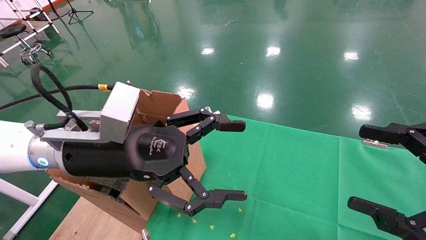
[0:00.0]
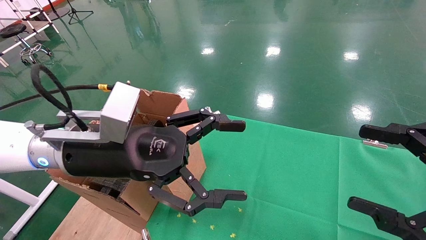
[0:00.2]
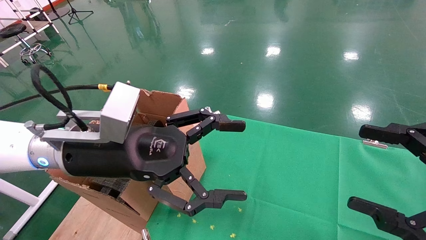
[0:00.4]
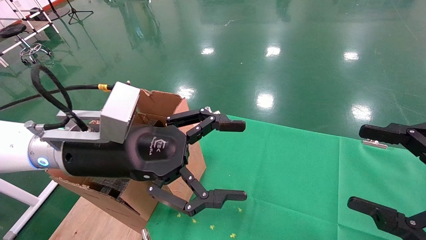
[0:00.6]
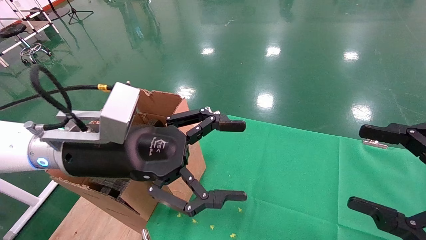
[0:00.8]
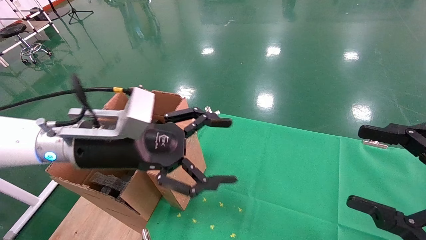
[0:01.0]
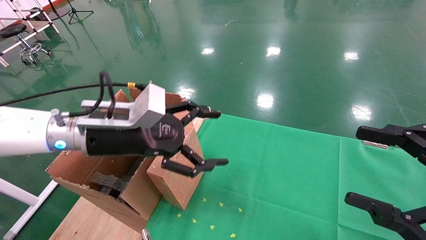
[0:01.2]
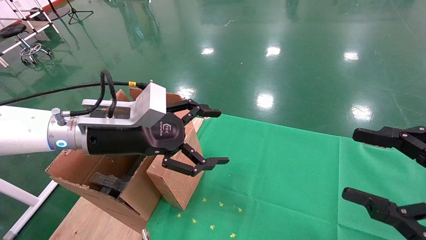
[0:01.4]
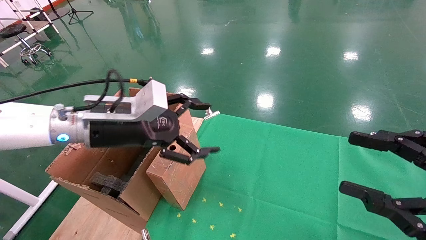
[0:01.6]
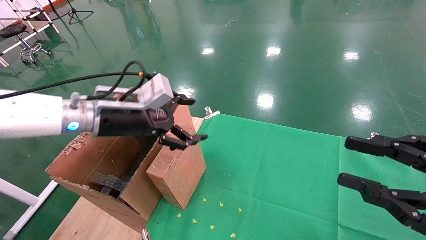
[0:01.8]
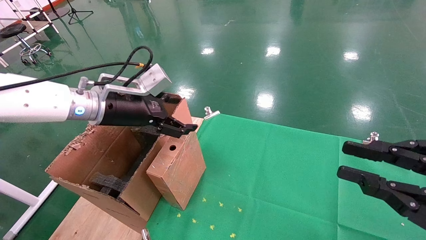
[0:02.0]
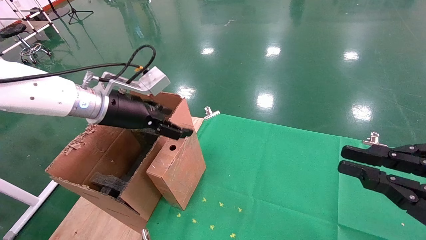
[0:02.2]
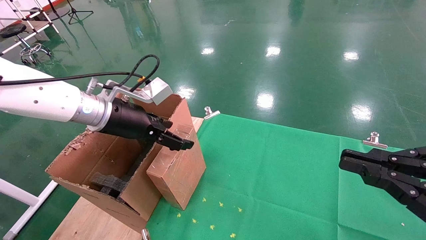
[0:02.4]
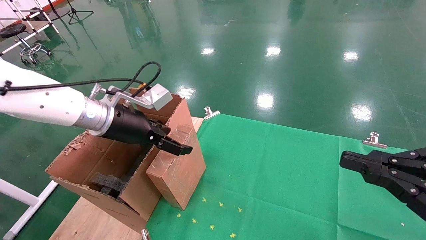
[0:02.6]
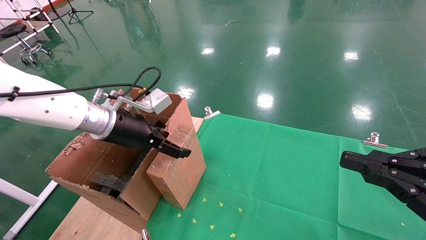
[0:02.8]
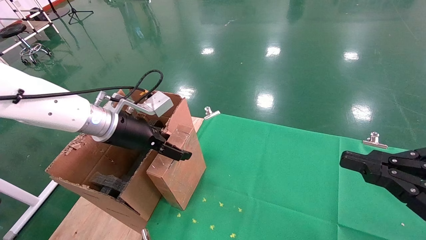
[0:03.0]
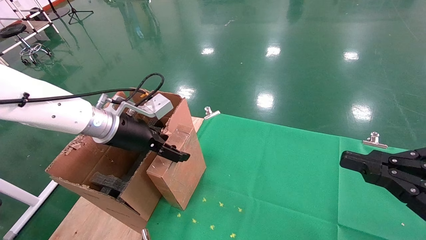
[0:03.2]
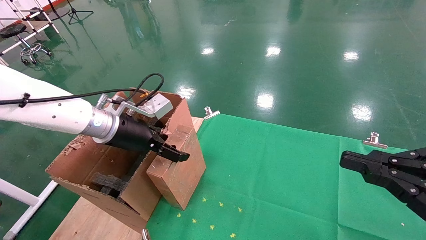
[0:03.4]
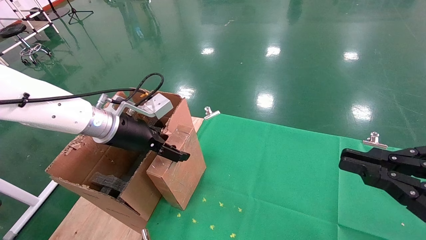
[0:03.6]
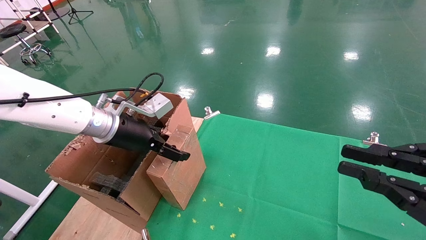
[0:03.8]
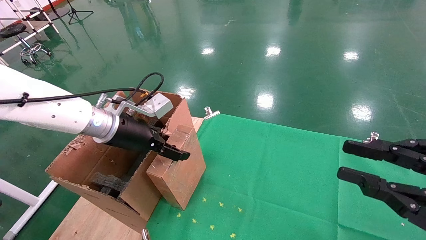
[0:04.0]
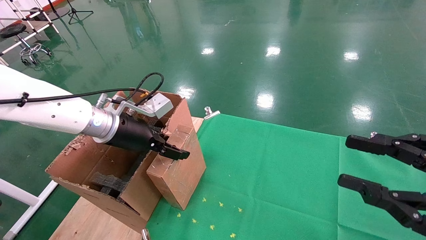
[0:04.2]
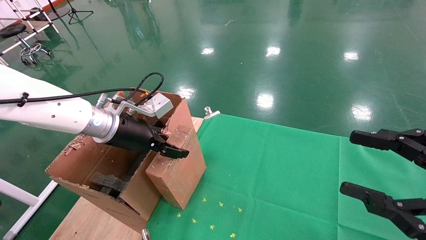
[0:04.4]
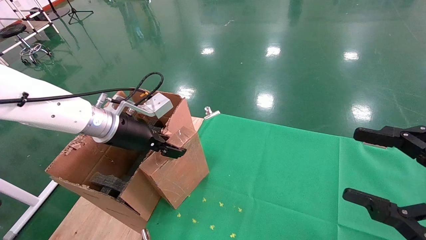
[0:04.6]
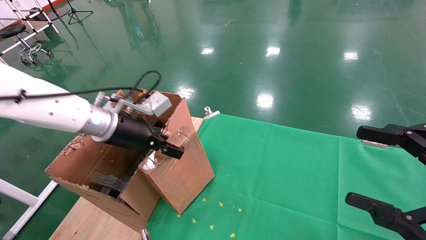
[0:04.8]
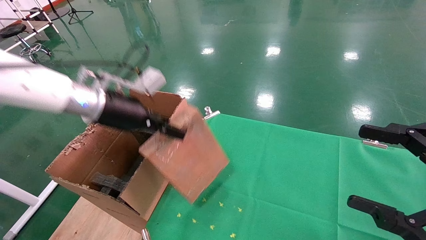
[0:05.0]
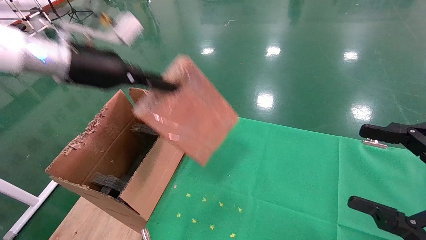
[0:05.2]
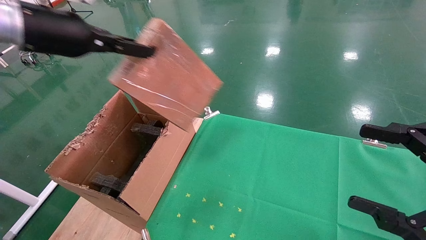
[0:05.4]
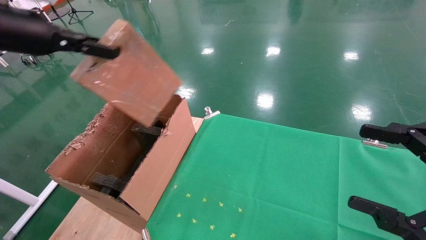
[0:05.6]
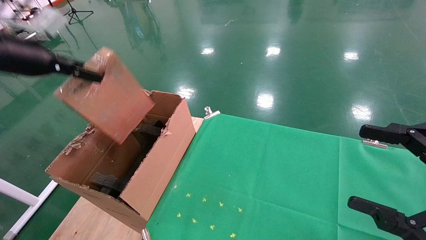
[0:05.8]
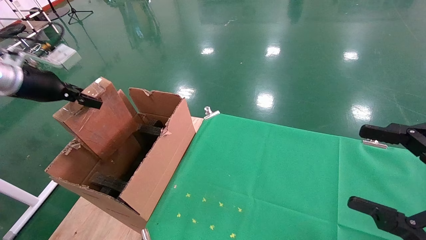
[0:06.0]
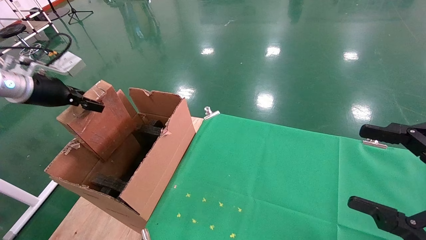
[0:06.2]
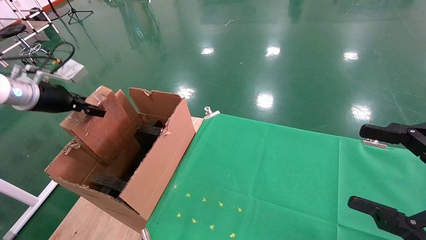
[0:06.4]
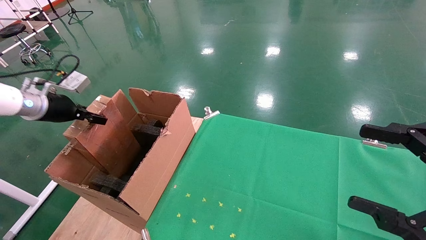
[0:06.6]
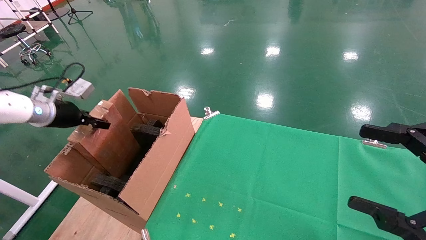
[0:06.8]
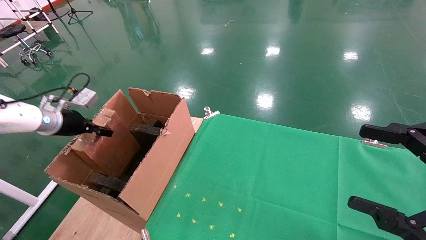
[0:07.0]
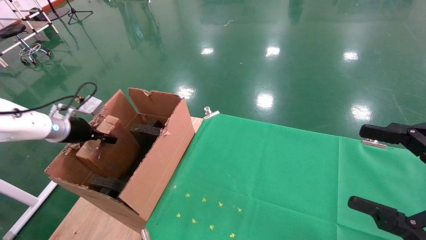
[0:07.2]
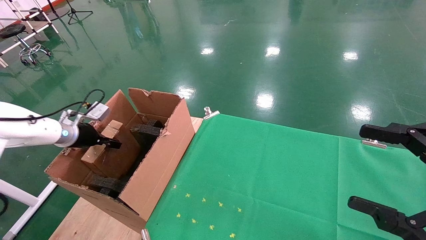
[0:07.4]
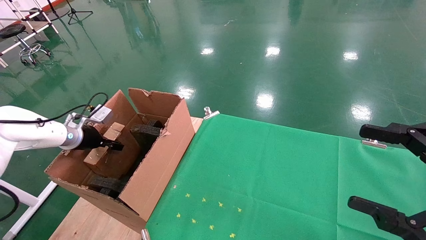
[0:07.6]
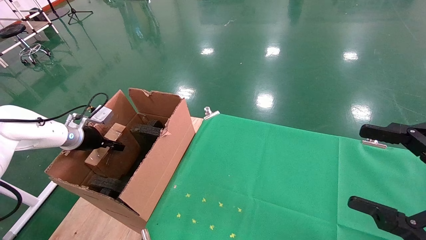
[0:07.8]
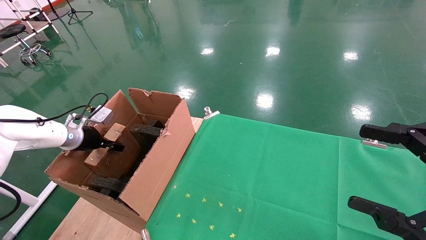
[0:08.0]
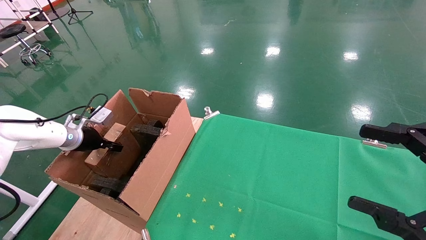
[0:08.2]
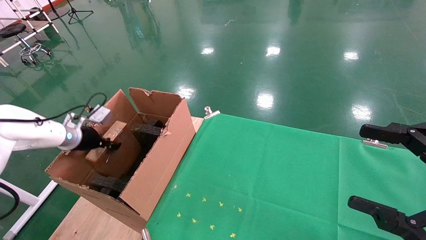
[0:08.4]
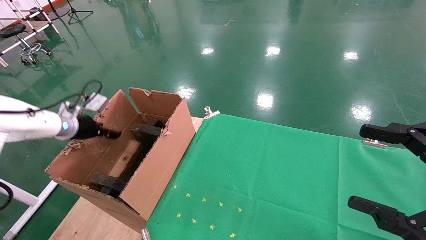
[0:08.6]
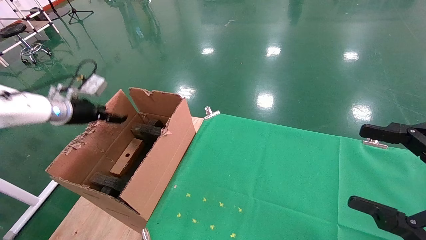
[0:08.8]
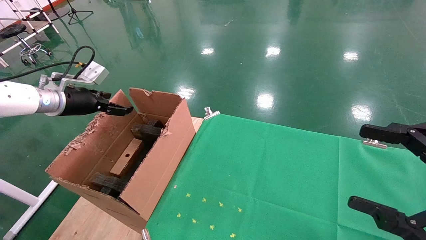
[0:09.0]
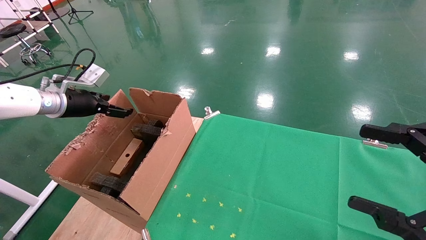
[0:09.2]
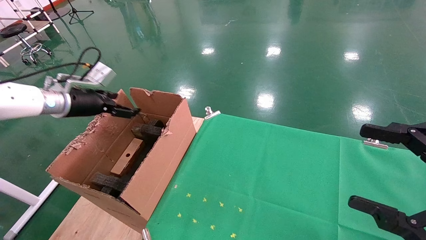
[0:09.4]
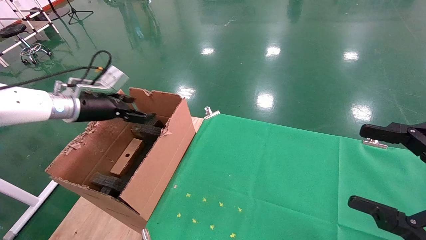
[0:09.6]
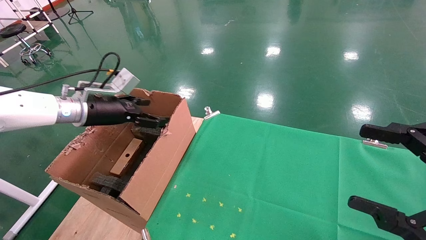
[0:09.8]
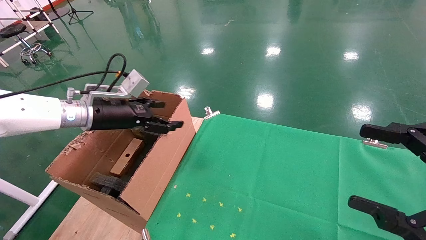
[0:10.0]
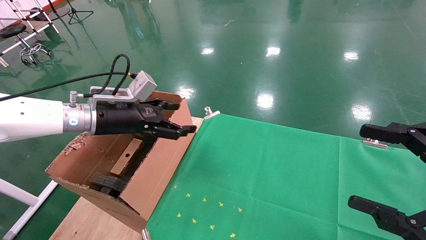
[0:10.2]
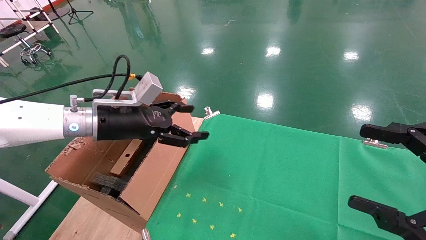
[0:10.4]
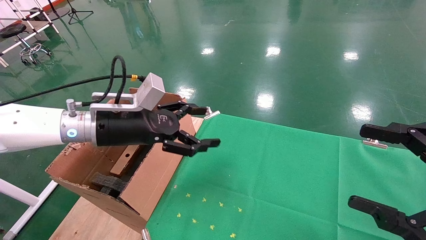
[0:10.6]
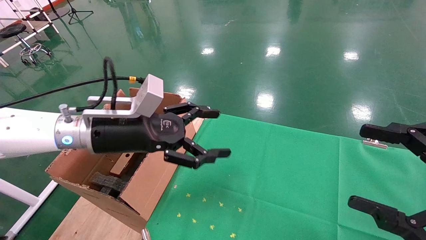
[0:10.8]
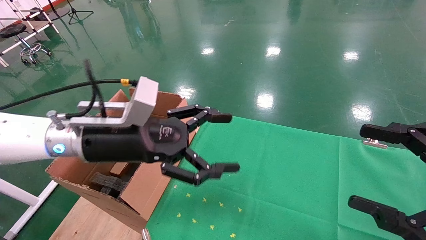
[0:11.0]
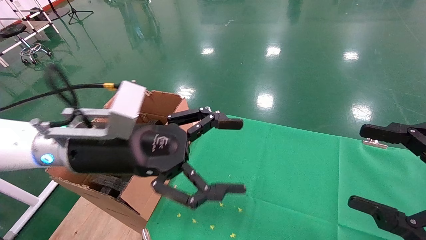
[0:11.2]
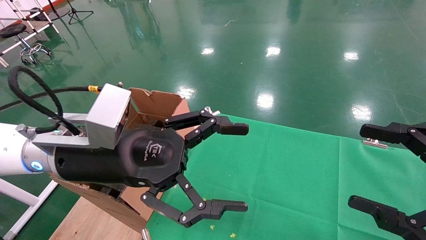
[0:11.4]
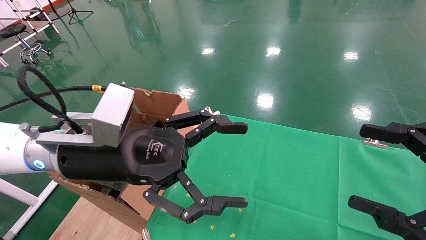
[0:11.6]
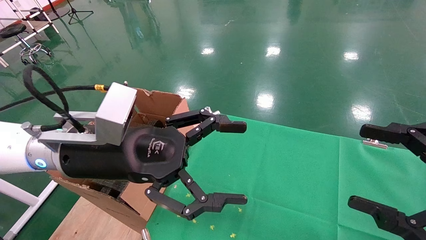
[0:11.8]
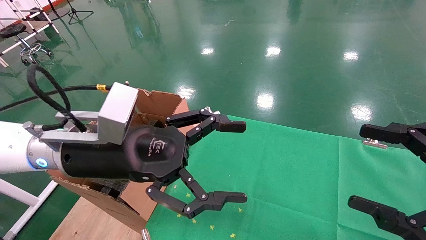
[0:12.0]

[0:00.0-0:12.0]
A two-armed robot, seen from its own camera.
Task of the whole recording: using a robotic arm to pick up a cardboard box and palace it the carton.
Step, 0:01.2 to 0:04.4: Pick up the mouse and the power cord paper box.
Step, 0:04.6 to 0:09.8: Place the mouse and the power cord paper box into the container.
0:00.0 to 0:01.6: The left gripper travels forward by about 5 cm.
0:01.6 to 0:03.0: The right gripper closes its fingers.
0:03.0 to 0:04.4: The right gripper opens up. Meanwhile the left gripper closes up.
0:04.4 to 0:06.0: The left gripper is displaced to the left and upward by approximately 20 cm, and closes its fingers. The right gripper opens up.
0:06.0 to 0:07.6: The left gripper travels downward and forward by some 20 cm.
0:07.6 to 0:09.0: The left gripper is displaced upward by some 10 cm, and opens up.
0:09.0 to 0:10.4: The left gripper moves to the right, roughly 15 cm.
0:10.4 to 0:12.0: The left gripper travels backward and to the right by approximately 15 cm.

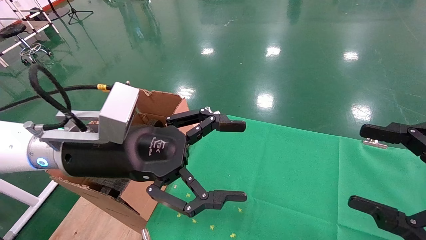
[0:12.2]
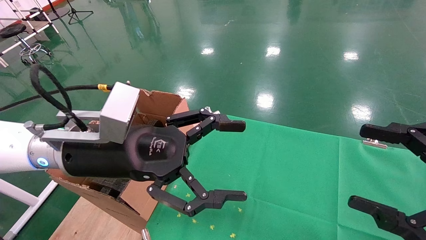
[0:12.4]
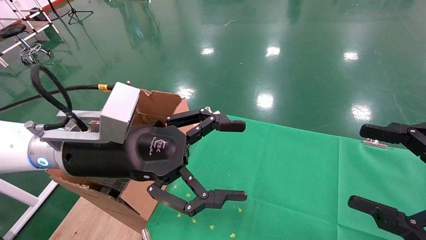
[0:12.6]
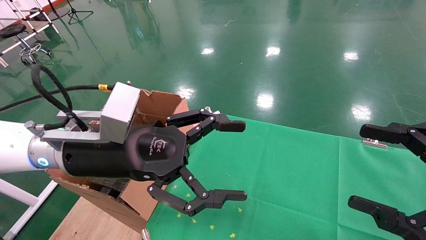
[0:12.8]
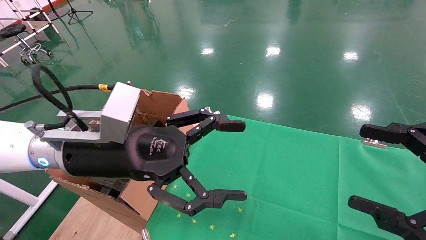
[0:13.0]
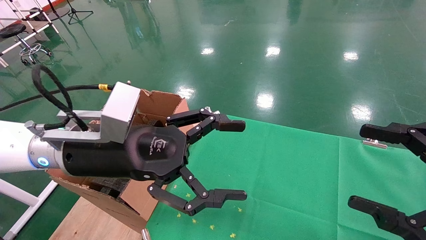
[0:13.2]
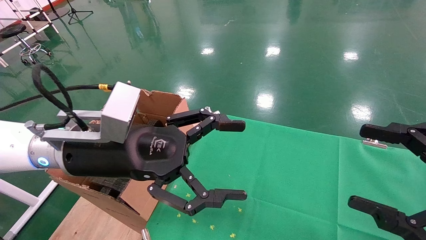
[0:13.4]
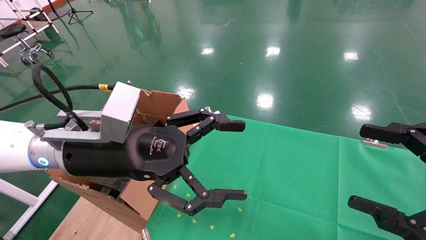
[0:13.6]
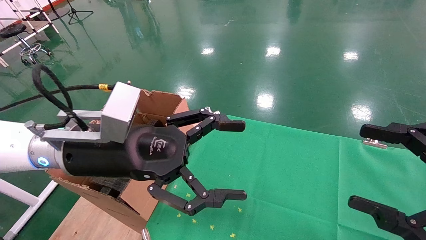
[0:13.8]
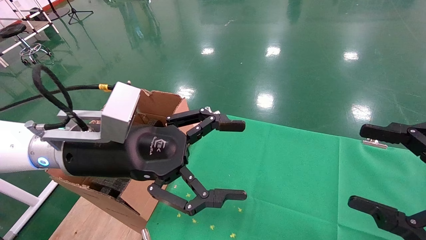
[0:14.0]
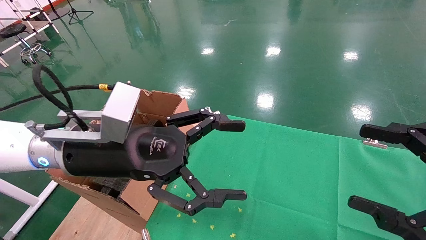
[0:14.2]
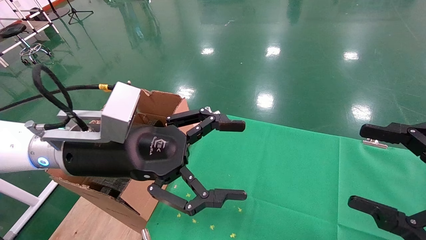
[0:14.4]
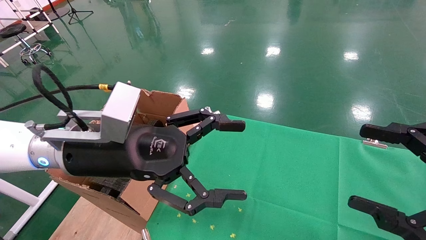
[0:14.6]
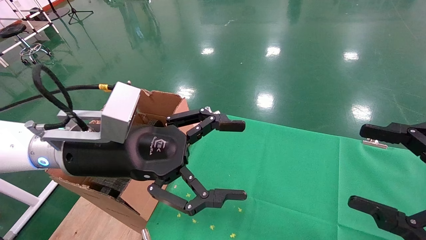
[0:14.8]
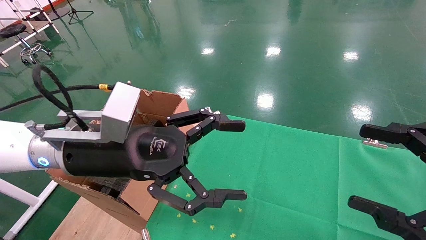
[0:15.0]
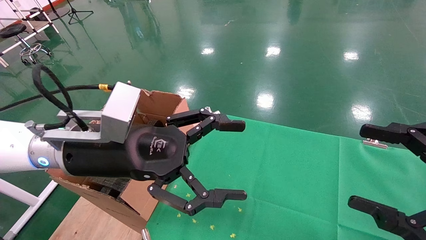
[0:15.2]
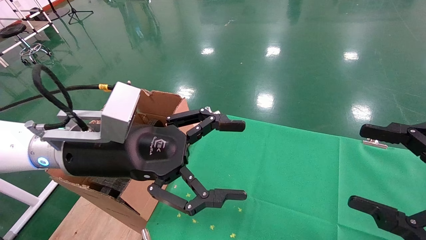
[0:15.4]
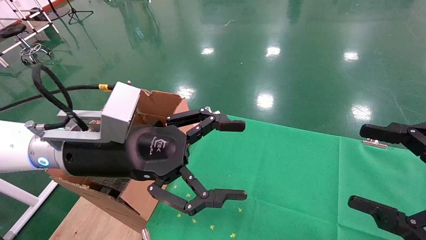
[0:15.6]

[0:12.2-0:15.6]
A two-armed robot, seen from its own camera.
Task of the whole recording: using a robotic arm to pick up a cardboard box and palace it the carton.
0:12.2 to 0:15.6: Neither gripper changes place.
